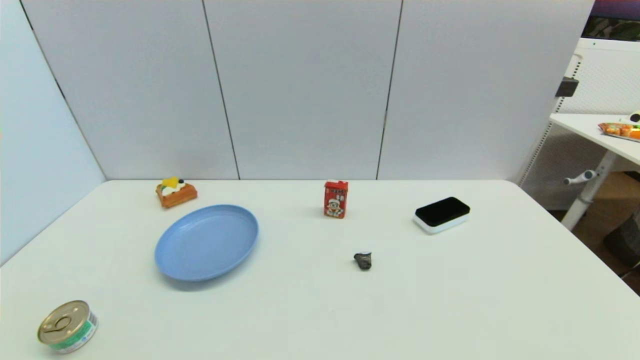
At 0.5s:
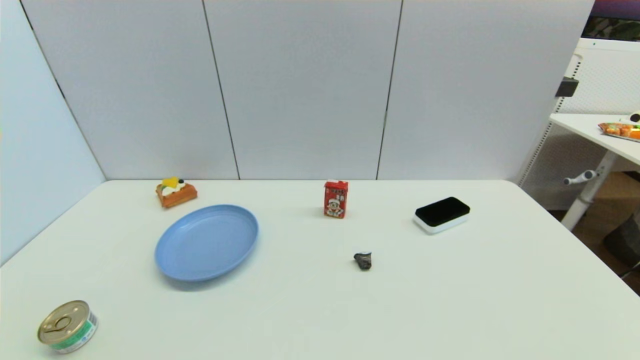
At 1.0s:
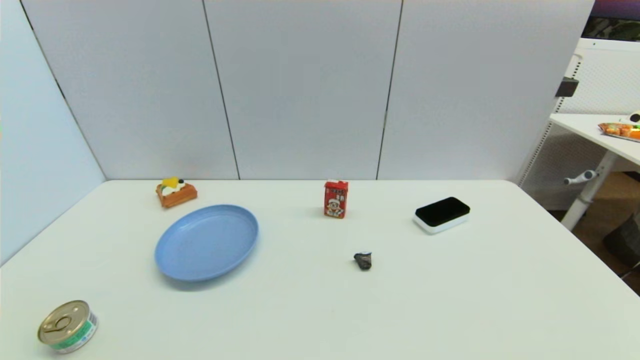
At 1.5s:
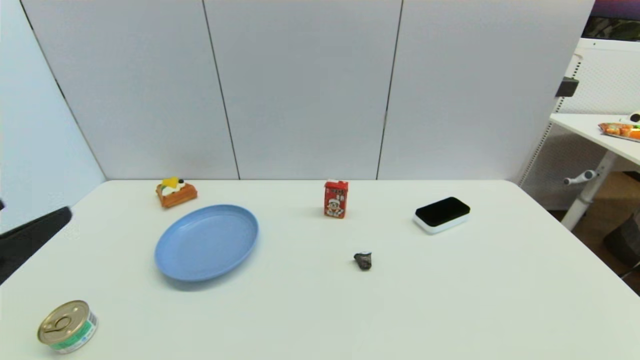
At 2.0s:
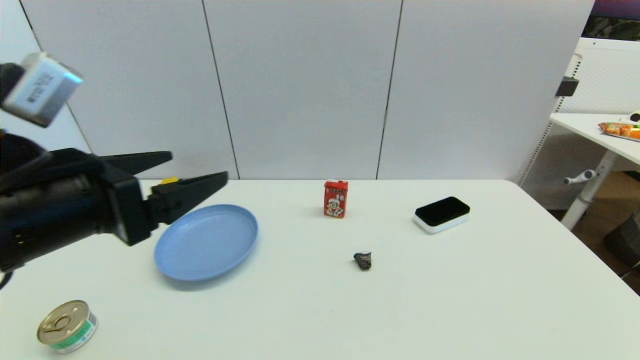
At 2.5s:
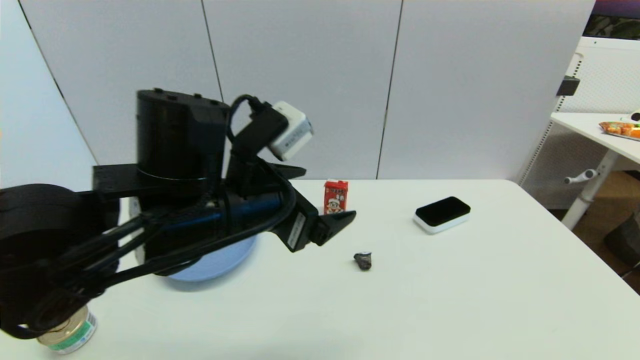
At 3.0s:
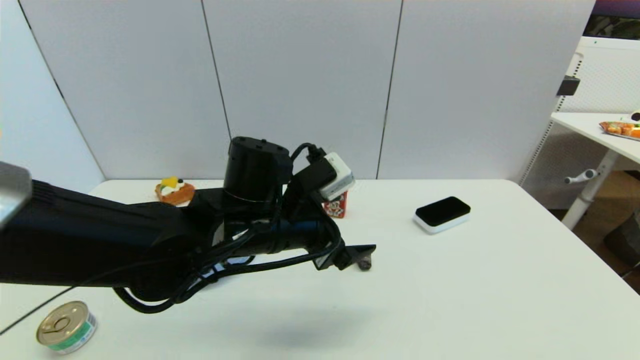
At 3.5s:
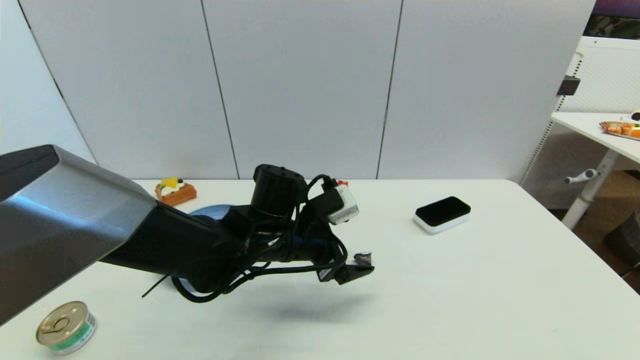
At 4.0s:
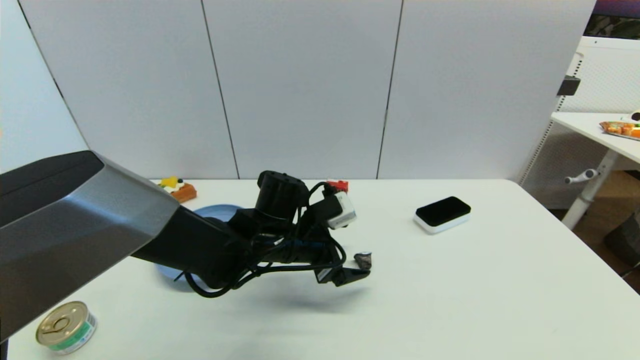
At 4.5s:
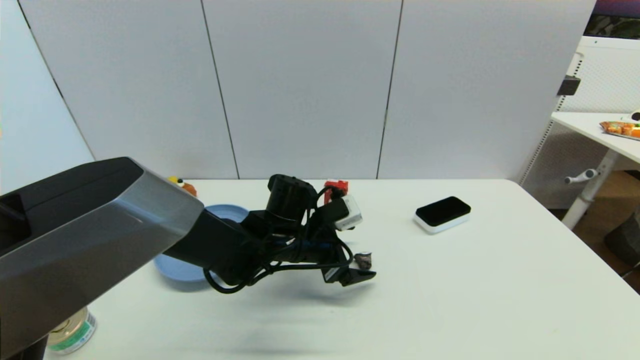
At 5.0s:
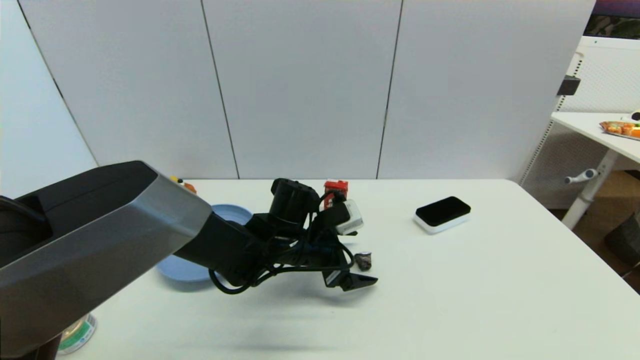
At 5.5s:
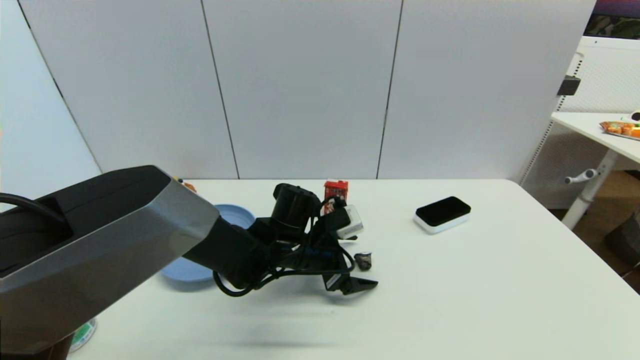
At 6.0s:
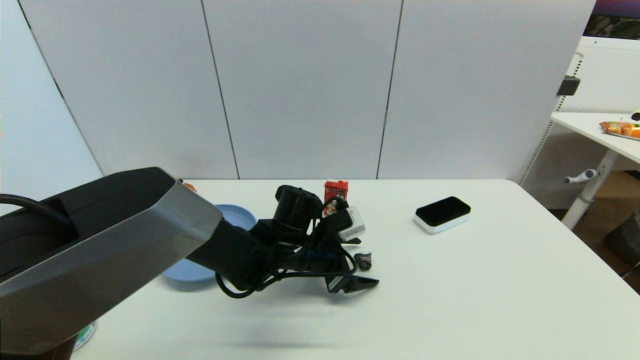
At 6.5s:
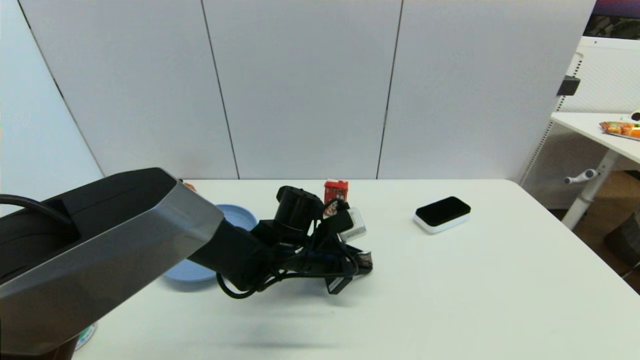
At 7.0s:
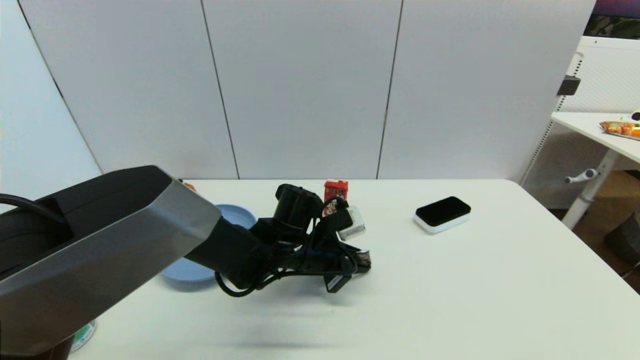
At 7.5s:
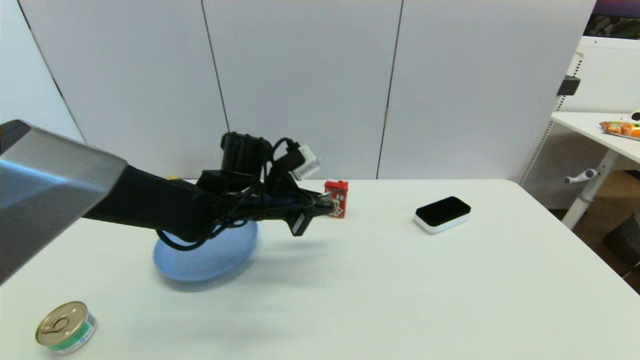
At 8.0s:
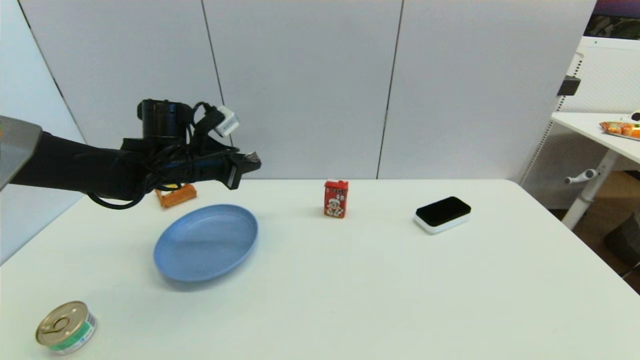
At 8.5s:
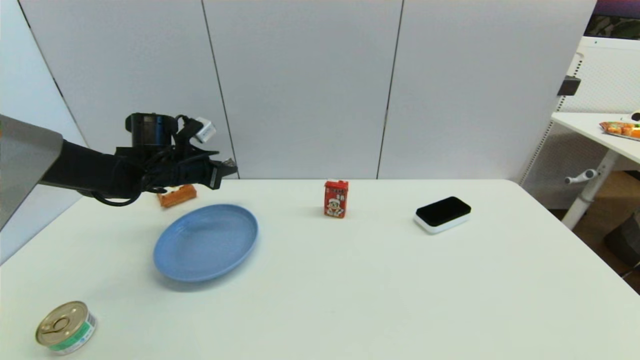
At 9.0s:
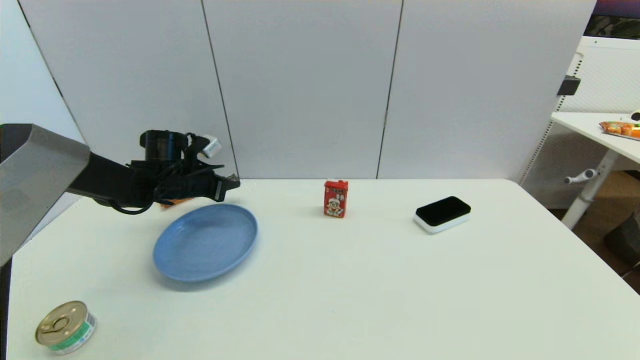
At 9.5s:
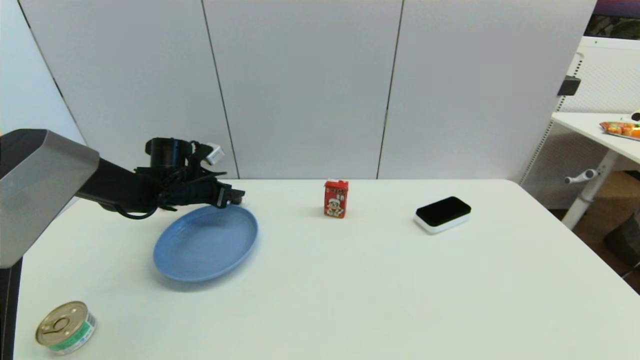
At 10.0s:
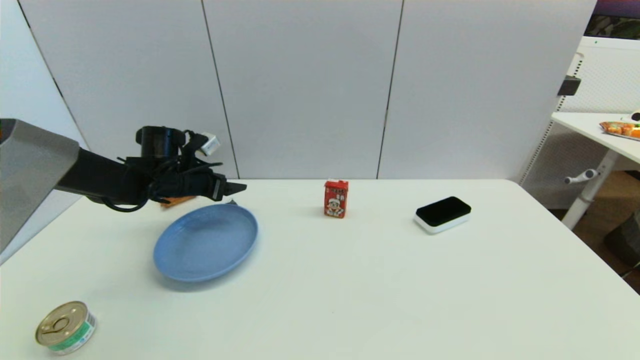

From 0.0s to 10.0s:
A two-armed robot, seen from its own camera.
Step, from 1.5s to 7.0s: Grasp the coffee capsule with left gripper.
From 0.0s to 2.0s: The left gripper goes about 25 cm upward, forward and to the right.
From 2.0s to 4.0s: The left gripper is displaced downward, to the right and forward by some 30 cm.
From 4.0s to 6.0s: The grippers stay close to where they were, moving slightly.
From 6.0s to 8.0s: The left gripper travels to the left and upward by some 20 cm, and closes up.
From 8.0s to 10.0s: The left gripper goes approximately 10 cm downward and to the left, and opens up.

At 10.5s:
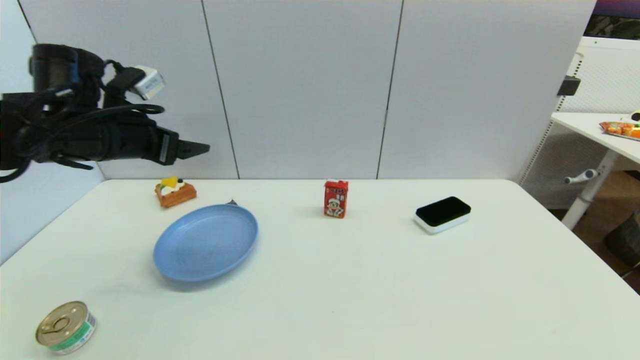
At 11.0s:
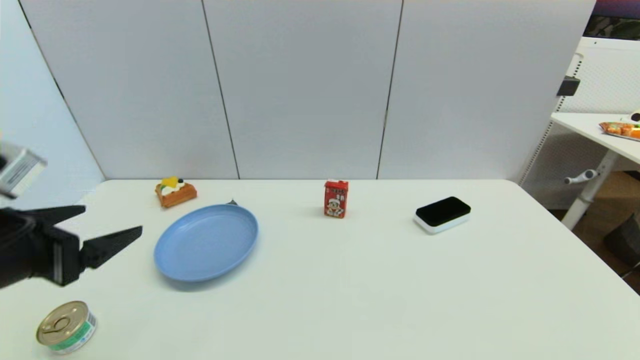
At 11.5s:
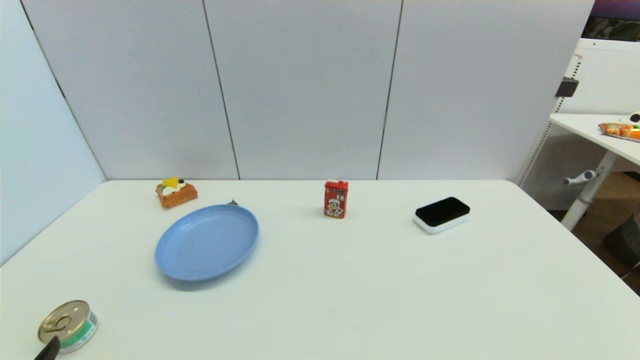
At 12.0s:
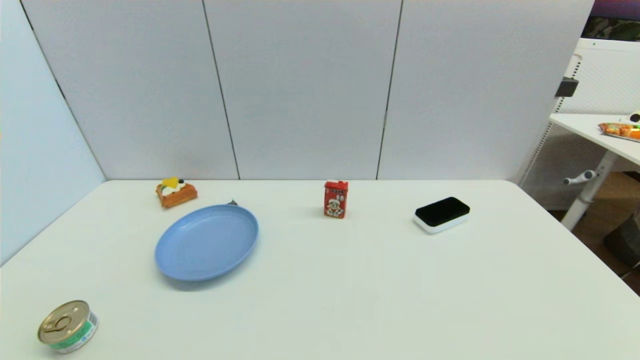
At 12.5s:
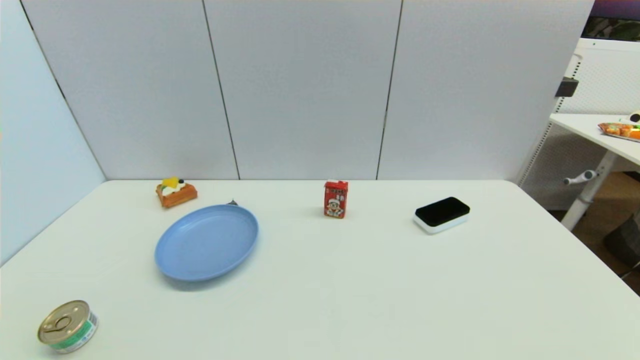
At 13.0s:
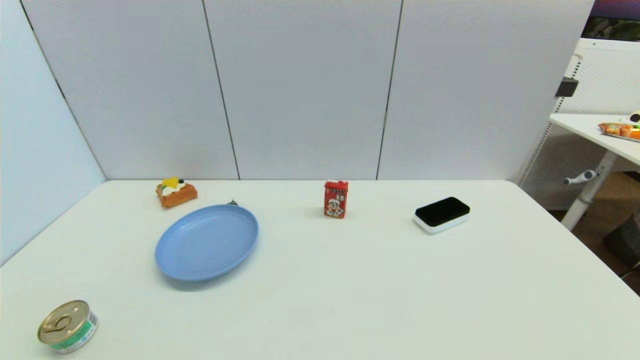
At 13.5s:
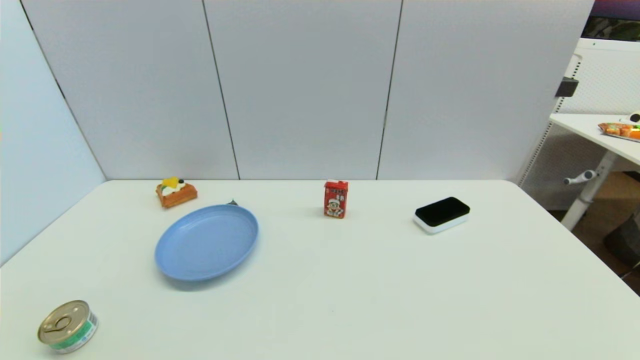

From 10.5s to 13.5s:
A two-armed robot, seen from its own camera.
From 10.5s to 12.0s: The left gripper moves backward and downward, some 40 cm.
